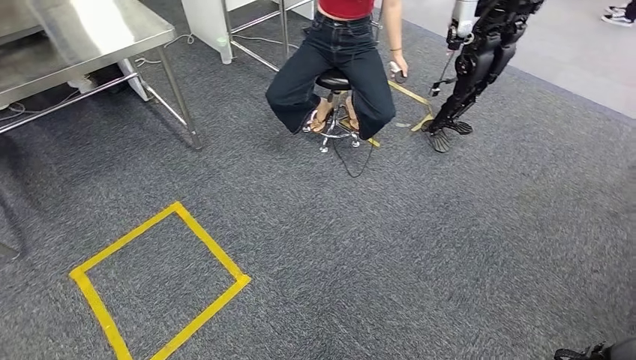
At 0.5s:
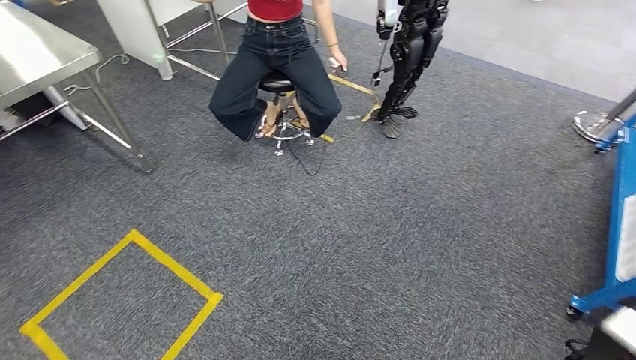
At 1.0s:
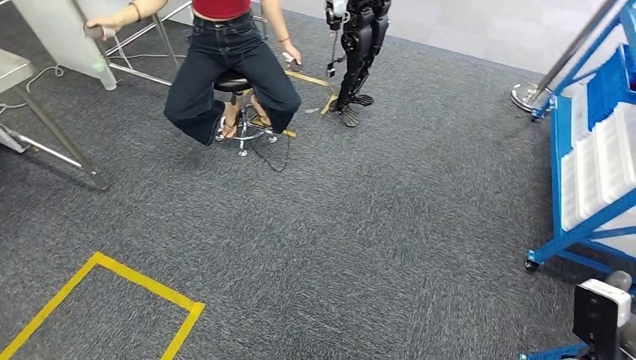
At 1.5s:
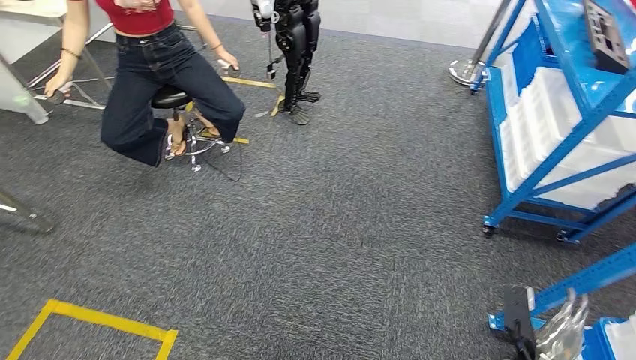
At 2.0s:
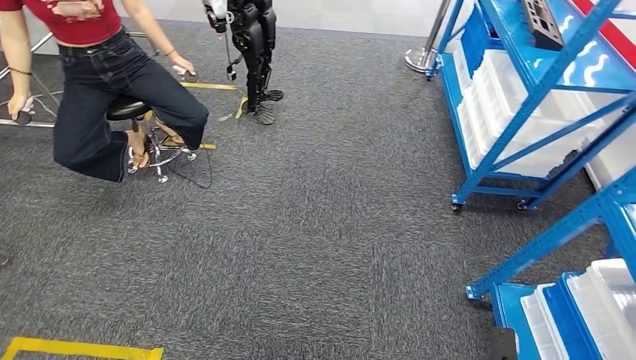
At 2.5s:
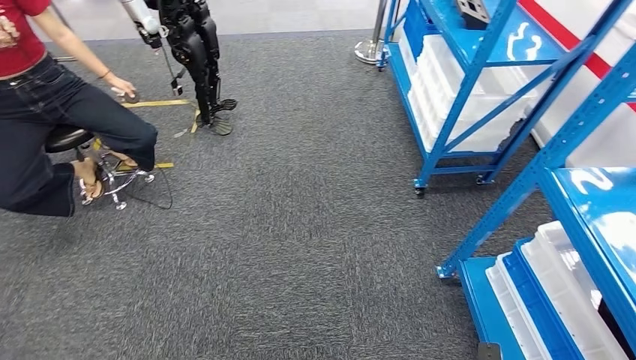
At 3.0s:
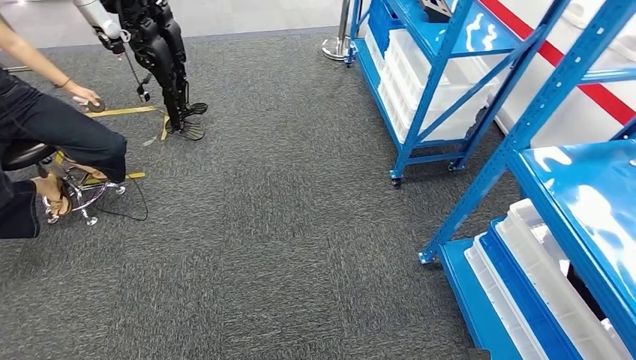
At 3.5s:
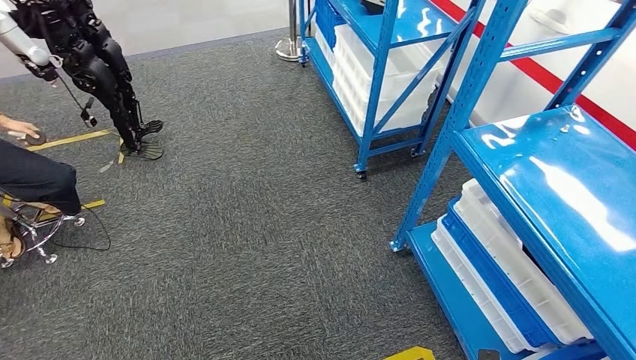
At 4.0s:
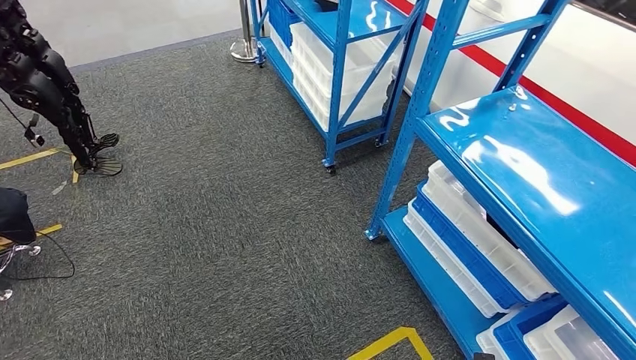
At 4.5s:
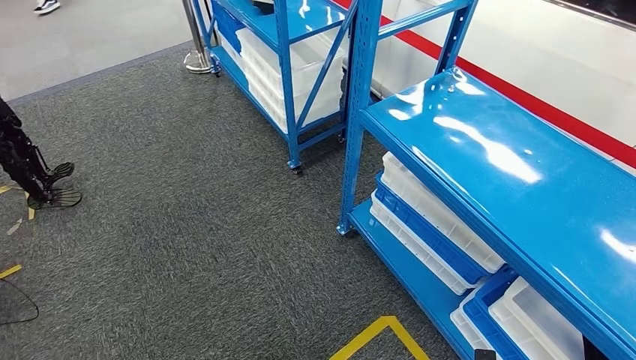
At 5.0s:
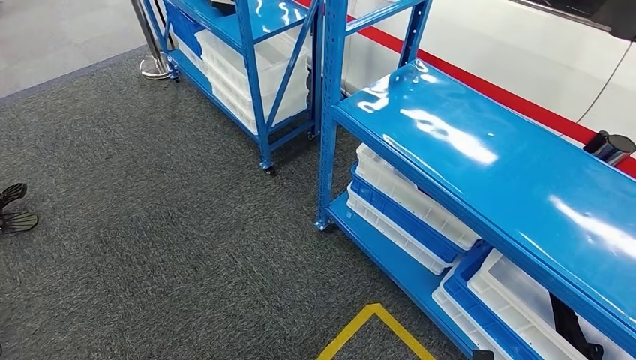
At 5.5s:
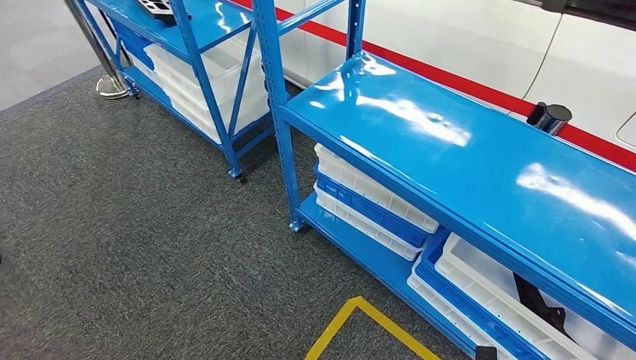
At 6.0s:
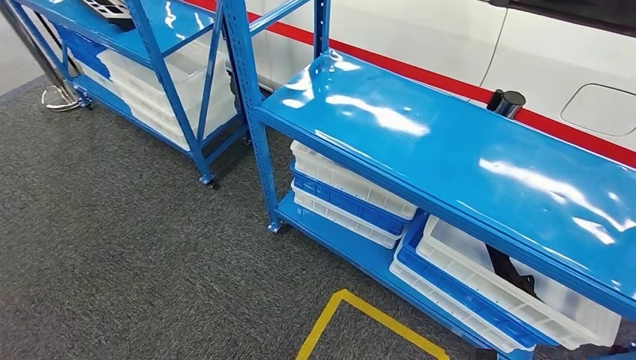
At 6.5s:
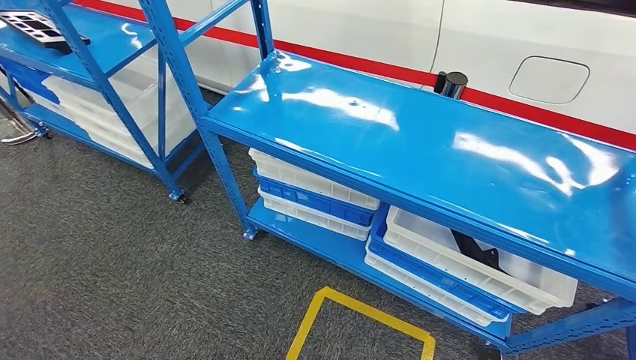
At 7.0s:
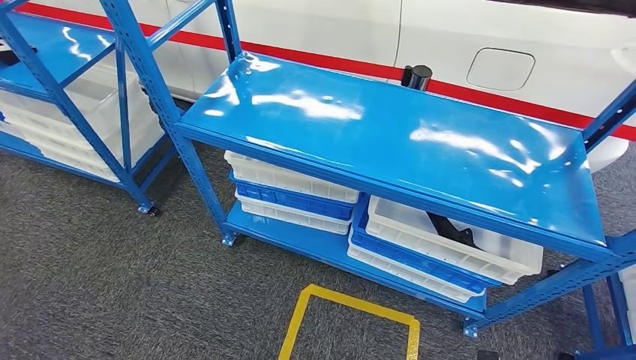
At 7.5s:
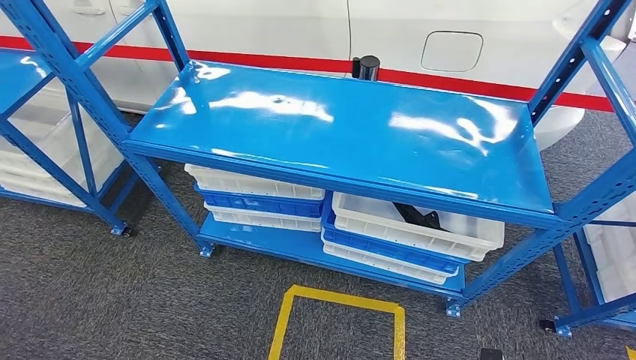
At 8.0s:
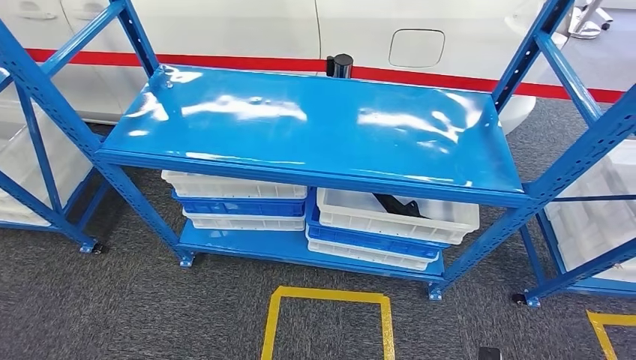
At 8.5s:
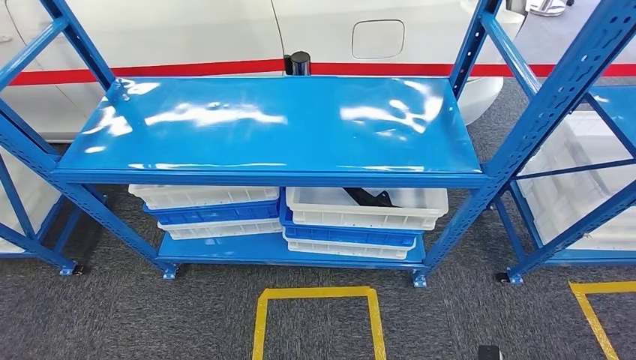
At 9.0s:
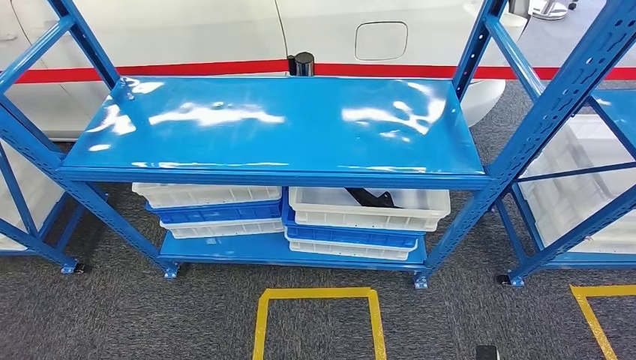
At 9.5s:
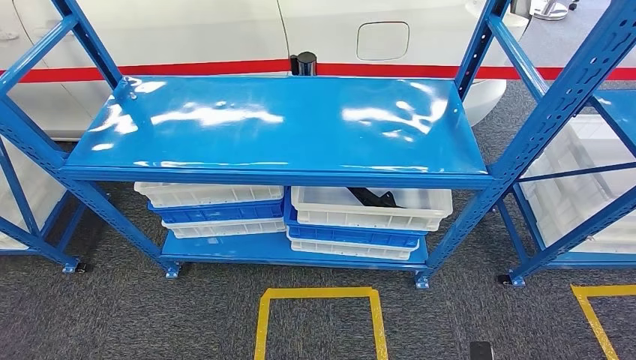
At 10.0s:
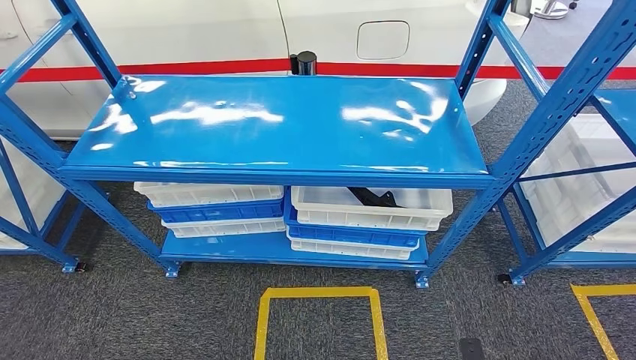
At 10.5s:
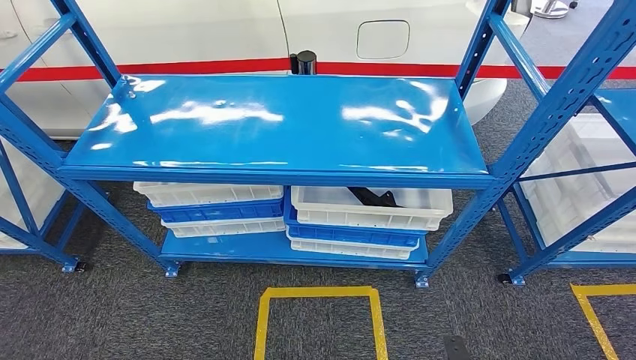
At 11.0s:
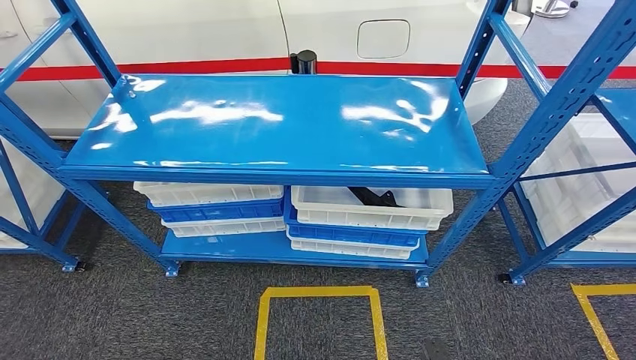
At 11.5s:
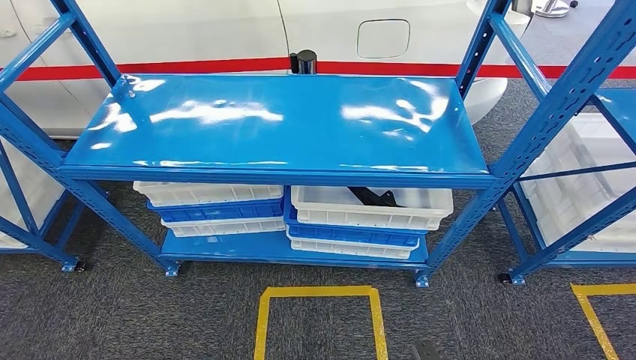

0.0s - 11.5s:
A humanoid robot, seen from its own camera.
Step, 0.0s - 11.5s: Move to the initial position of the shelf.
